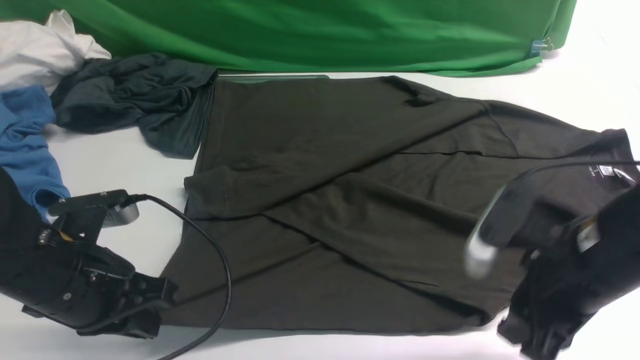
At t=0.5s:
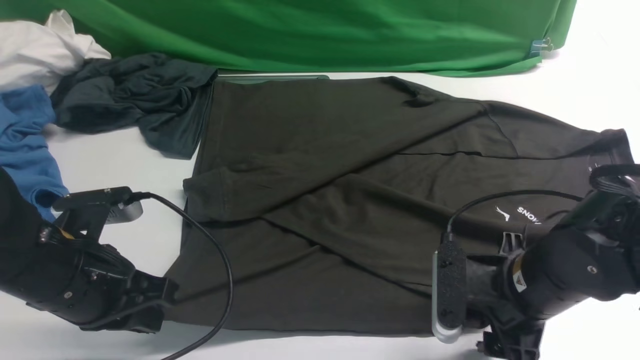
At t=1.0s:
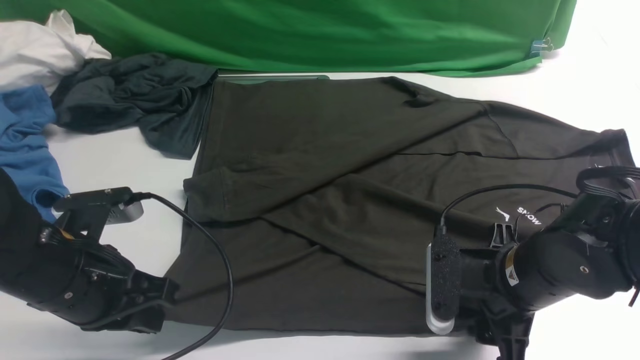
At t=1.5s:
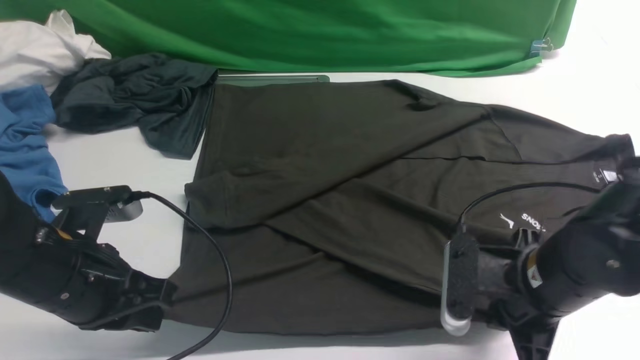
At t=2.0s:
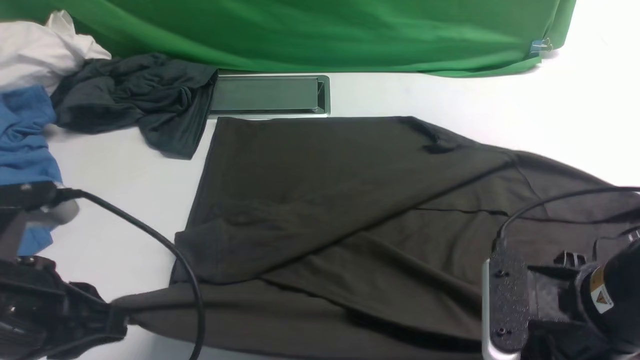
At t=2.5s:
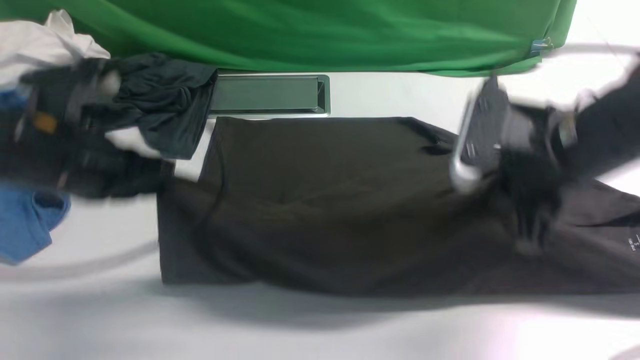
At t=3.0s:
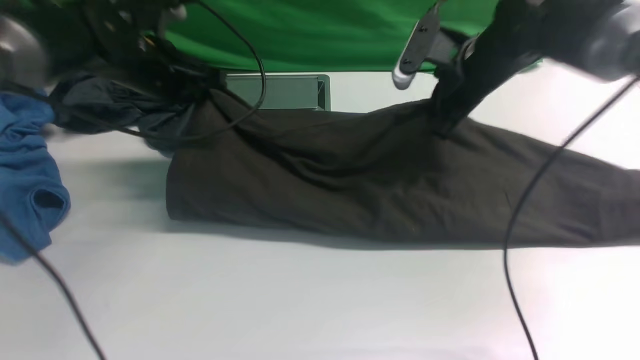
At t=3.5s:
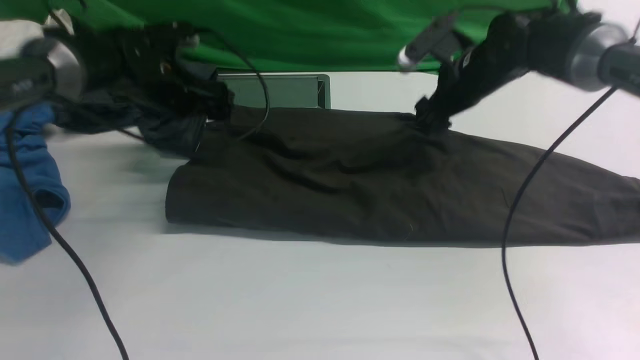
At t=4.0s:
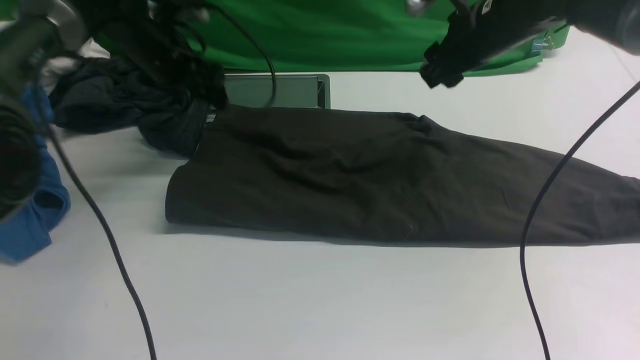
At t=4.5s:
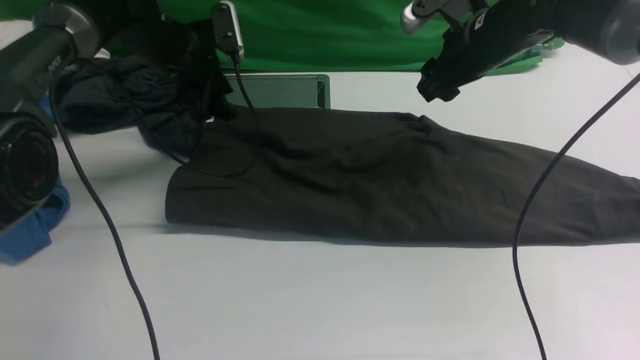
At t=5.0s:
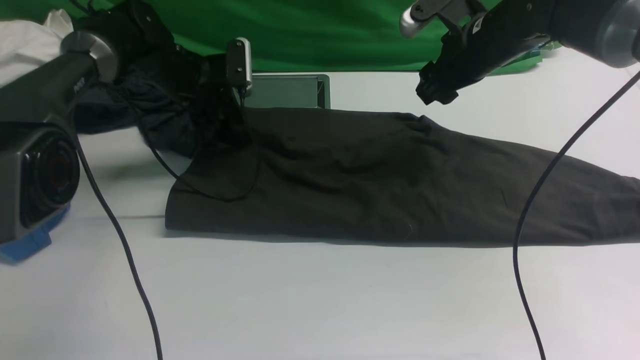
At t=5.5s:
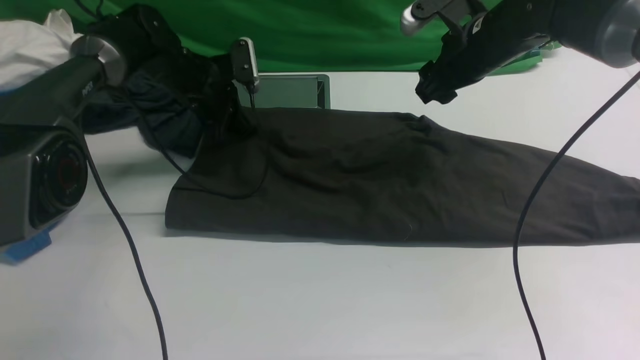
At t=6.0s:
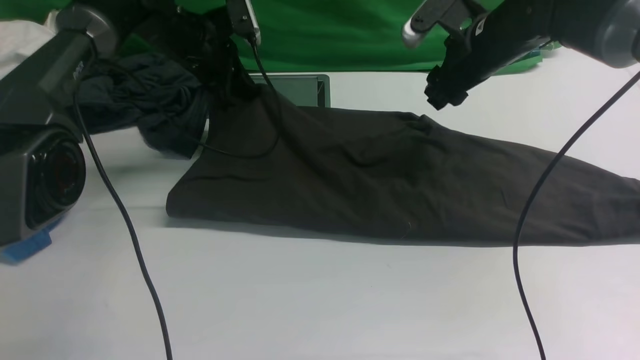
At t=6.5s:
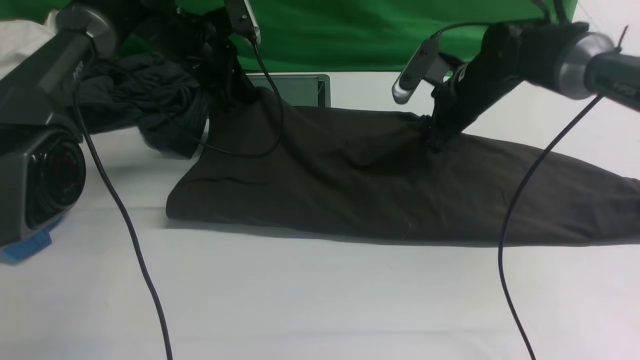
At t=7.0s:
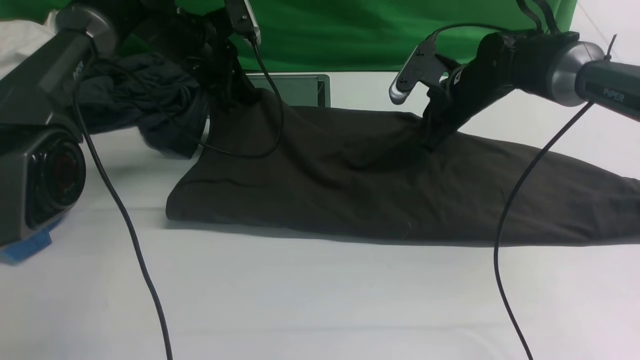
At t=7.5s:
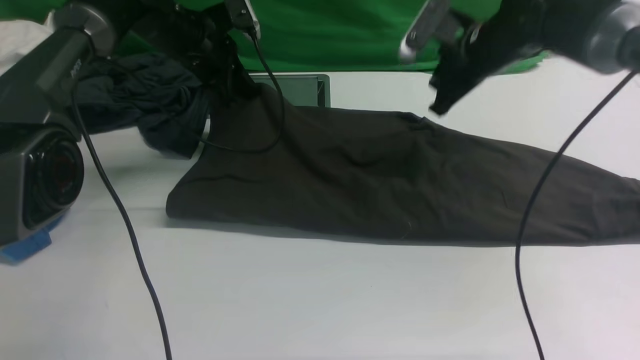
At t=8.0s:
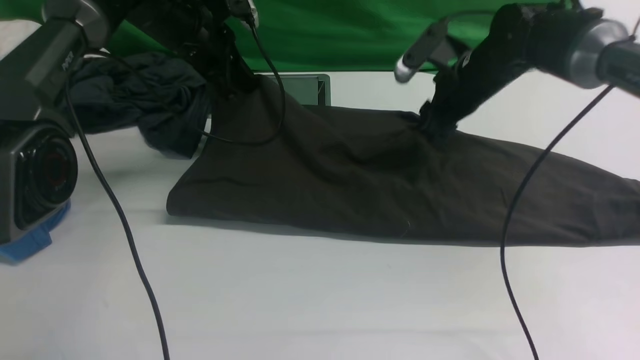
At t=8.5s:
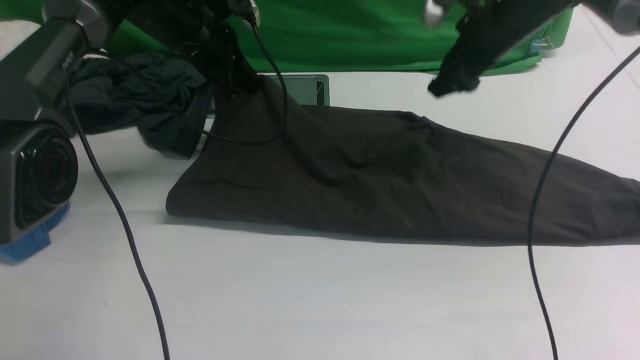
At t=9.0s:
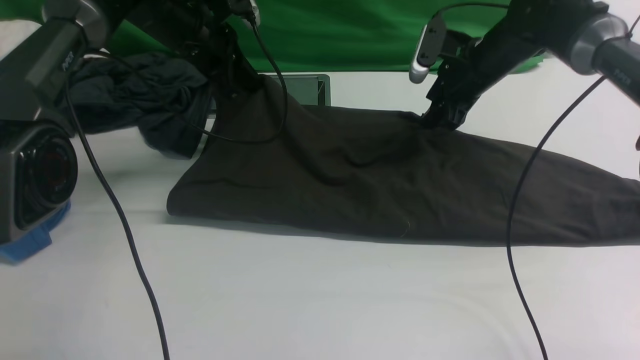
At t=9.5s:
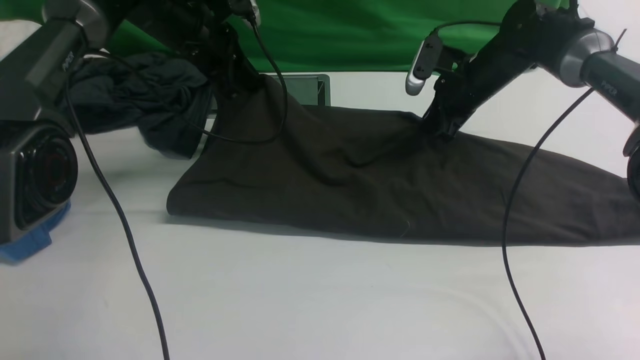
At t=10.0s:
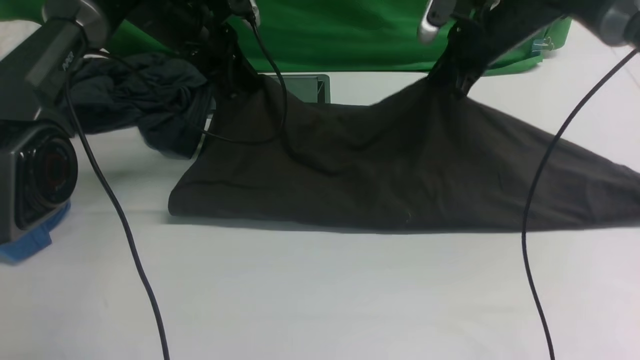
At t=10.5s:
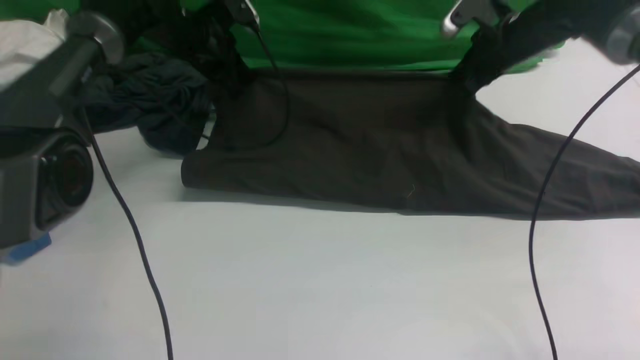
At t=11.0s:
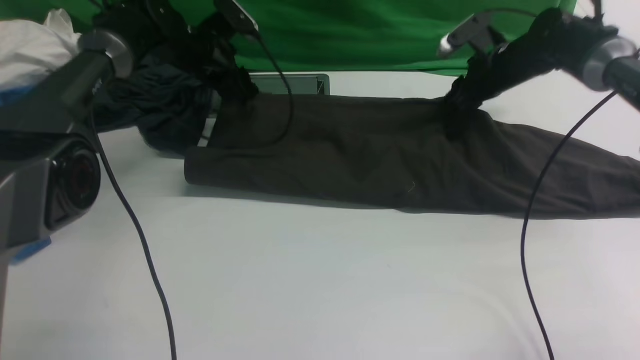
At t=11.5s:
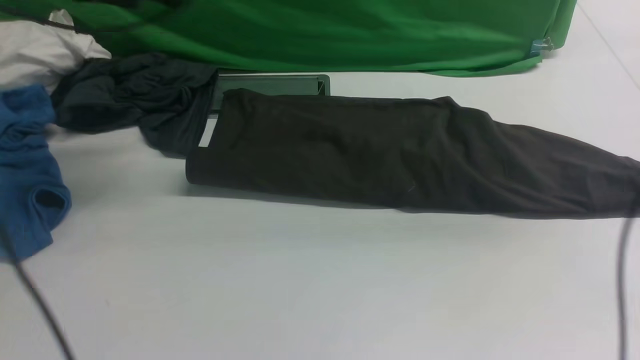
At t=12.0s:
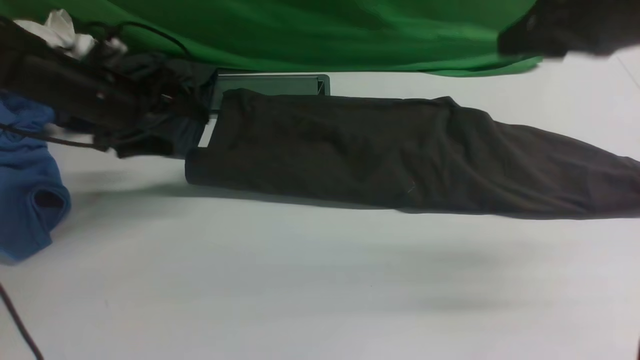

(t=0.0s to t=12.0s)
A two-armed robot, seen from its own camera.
Step, t=2.0s - t=3.5s: use both arms to drag the lower edge of the fabric forward and fold it over the upper edge.
t=0.0s - t=2.0s: The left gripper travels upward by roughly 5 cm. The right gripper closes its fingers.
t=2.0s - t=4.0s: The grippers both shift forward by about 30 cm. The right gripper opens its fingers. The left gripper opens up.
t=4.0s - t=6.0s: The left gripper closes its fingers.
t=6.0s - t=8.0s: The right gripper closes and opens again.
t=8.0s - t=10.0s: The right gripper closes up.
t=10.0s - t=12.0s: The right gripper swings up and down, approximately 20 cm each way, with 2 reversals, and opens its fingers; the left gripper heads backward and to the left, covering some 15 cm, travels upward and back again, approximately 10 cm each way, and opens.

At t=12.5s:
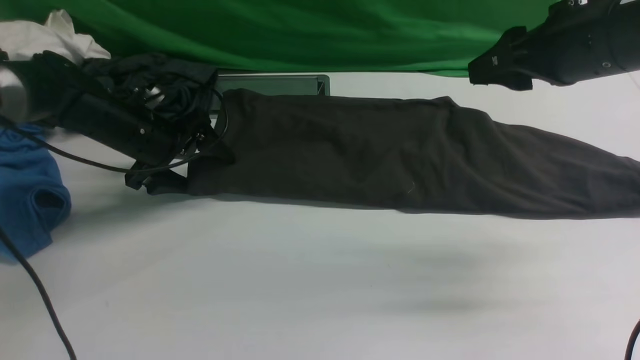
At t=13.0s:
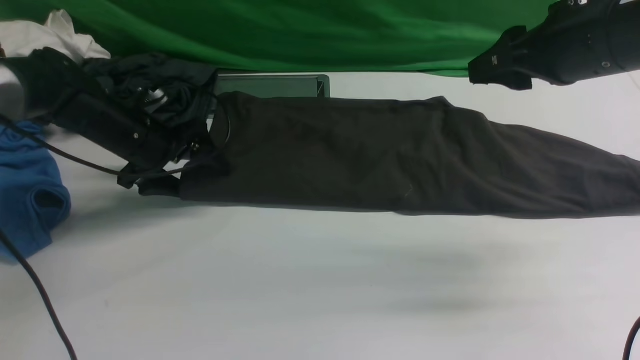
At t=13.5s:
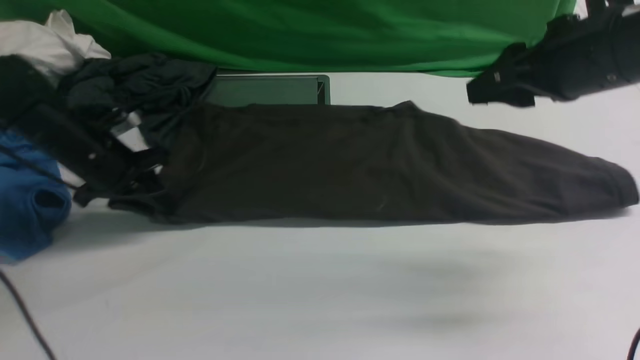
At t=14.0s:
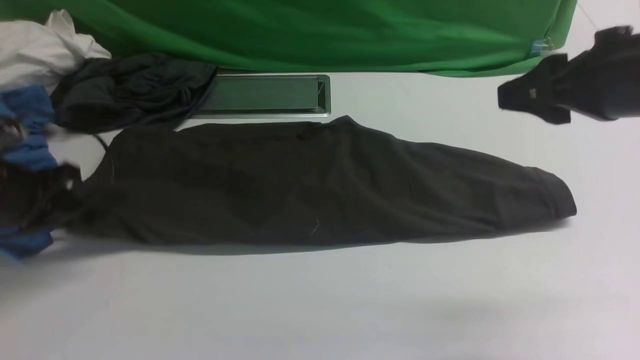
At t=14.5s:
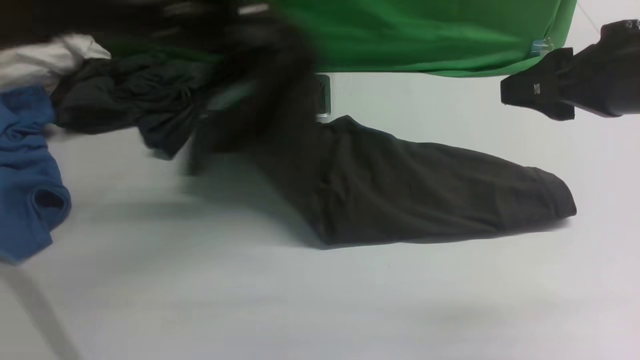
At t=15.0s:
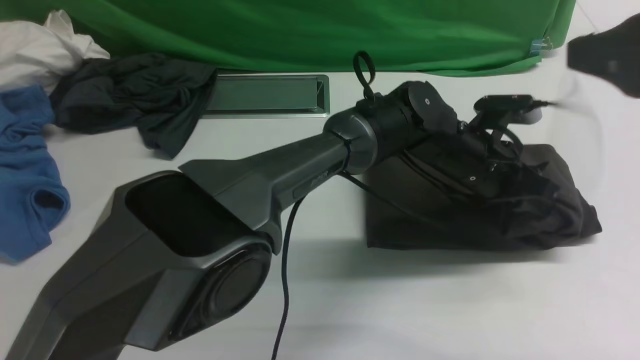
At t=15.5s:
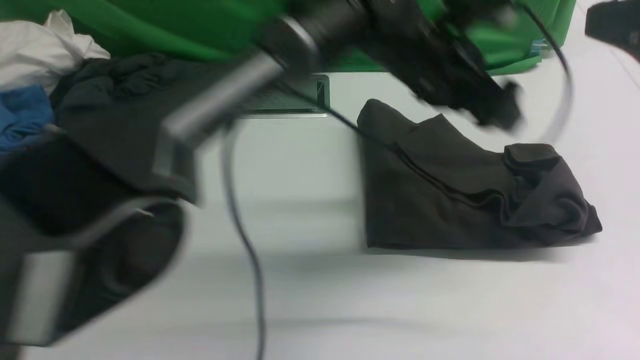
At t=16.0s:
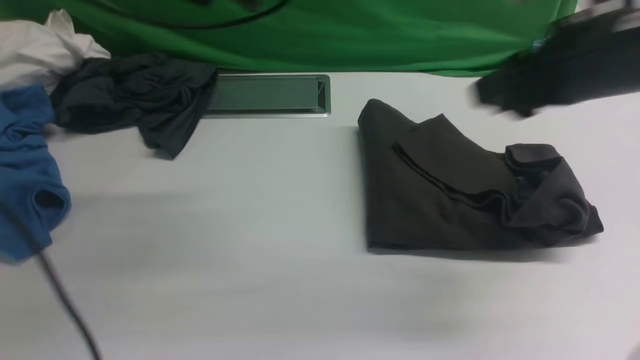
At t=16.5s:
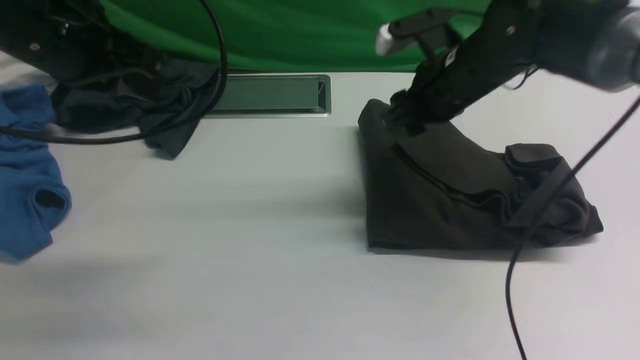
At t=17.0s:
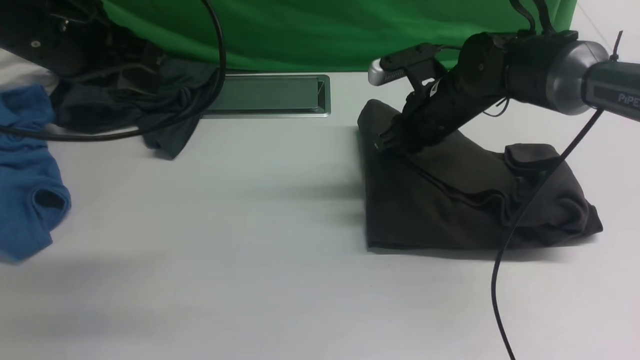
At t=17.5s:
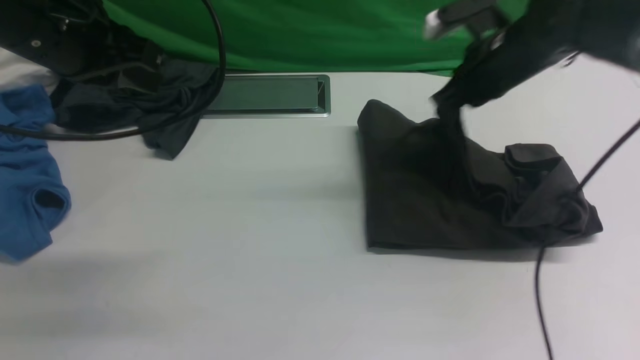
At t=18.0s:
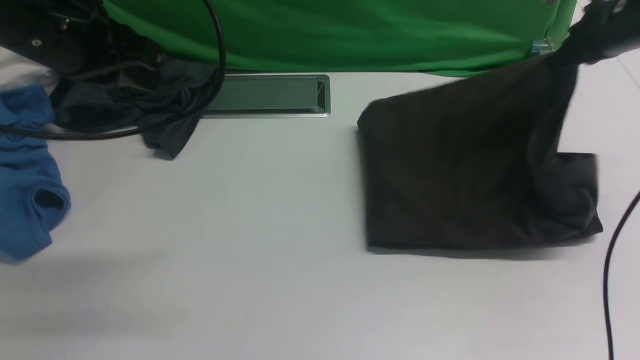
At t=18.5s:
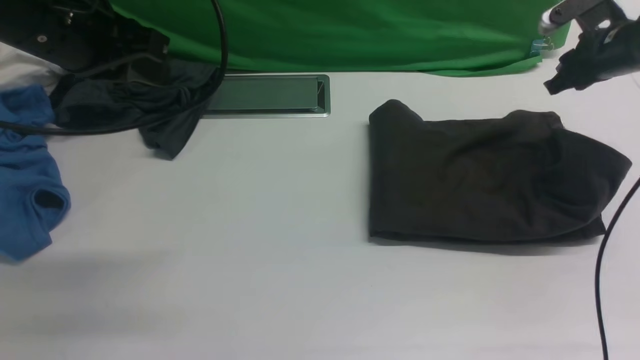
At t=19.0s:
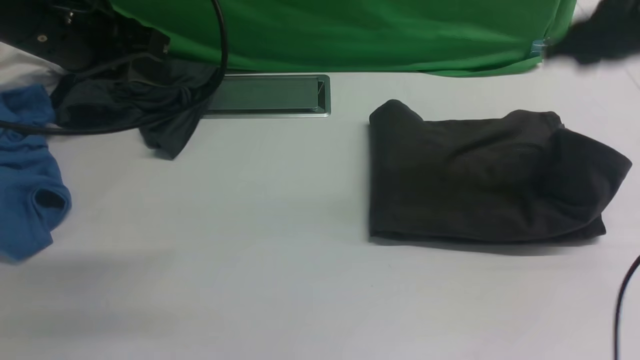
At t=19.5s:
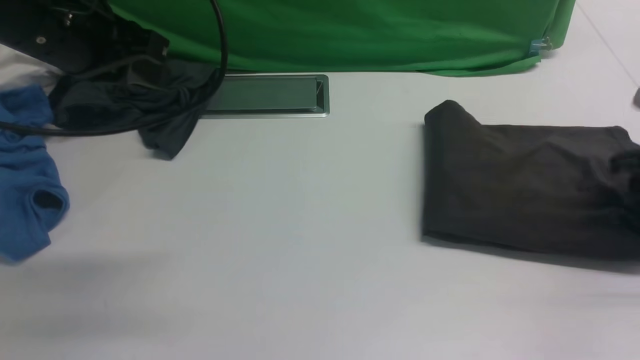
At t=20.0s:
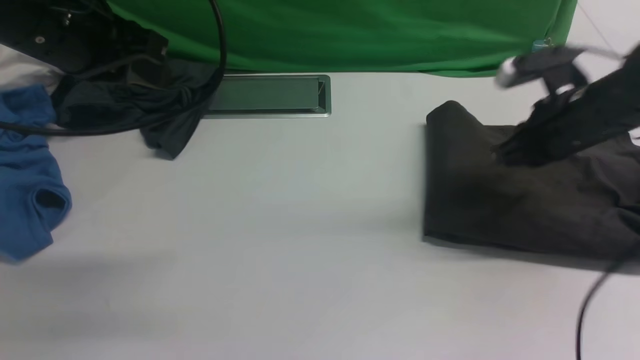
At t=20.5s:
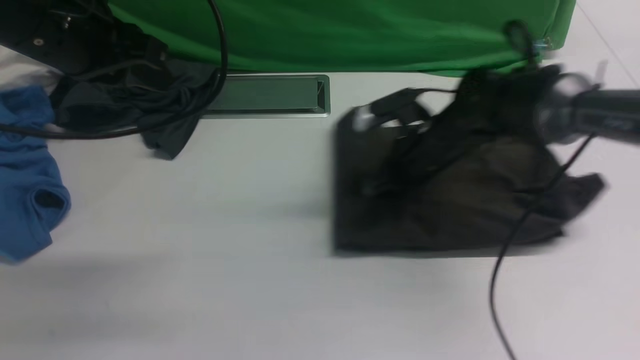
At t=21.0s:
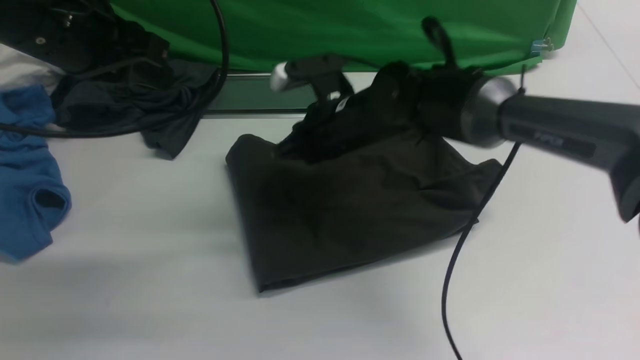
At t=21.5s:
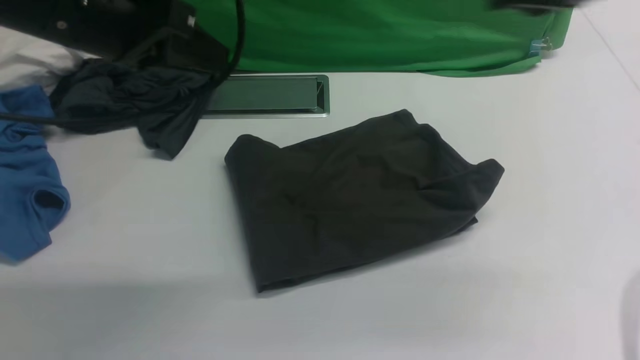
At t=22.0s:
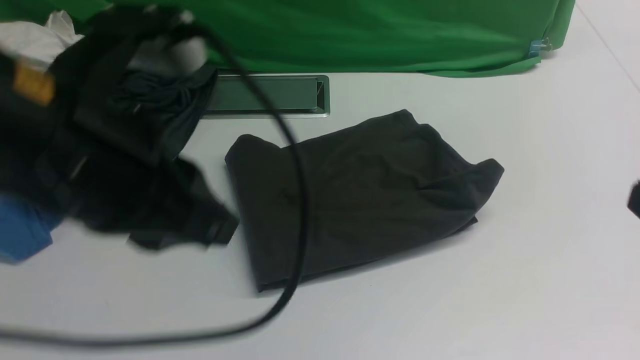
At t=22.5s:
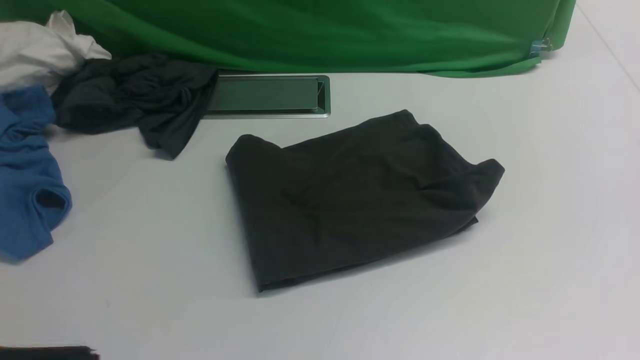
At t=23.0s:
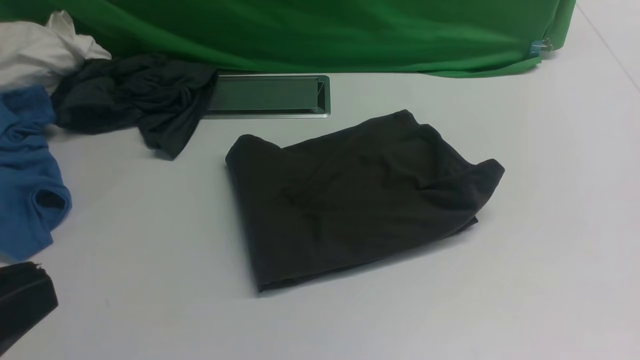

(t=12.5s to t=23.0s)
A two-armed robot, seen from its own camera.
Step, t=14.5s - t=15.5s: Drag the left edge of the fabric to the left with your left arm and fold it to the right edge.
t=12.5s - t=14.5s: The left gripper shifts some 20 cm upward and to the right, and closes its fingers, while the right gripper goes approximately 5 cm backward.
t=14.5s - t=16.5s: The right gripper goes some 20 cm forward, downward and to the left. The left gripper moves backward and upward, about 10 cm, travels to the right and back again, about 25 cm each way, and opens, then closes once more.
t=16.5s - t=19.0s: The right gripper shifts roughly 20 cm to the right, and closes up.
t=19.0s - t=21.0s: The right gripper goes approximately 30 cm to the left.
t=21.0s - t=23.0s: The right gripper goes about 40 cm backward and to the right, while the left gripper moves backward, roughly 30 cm.
